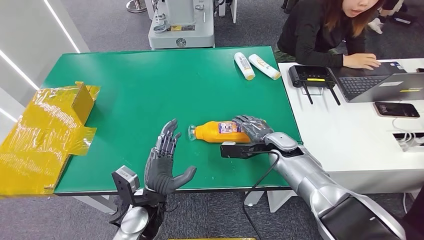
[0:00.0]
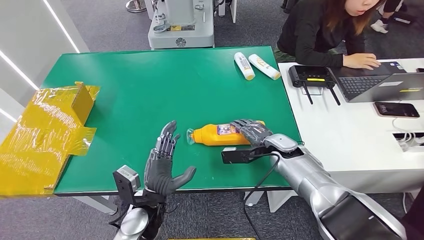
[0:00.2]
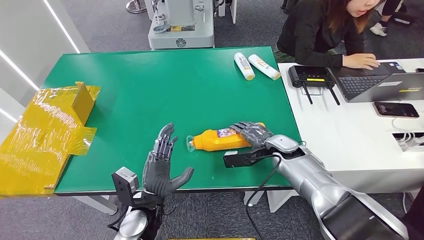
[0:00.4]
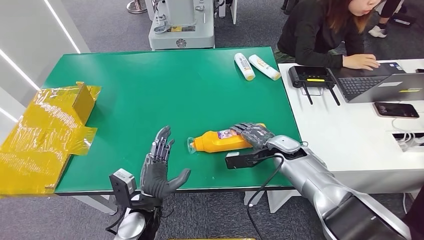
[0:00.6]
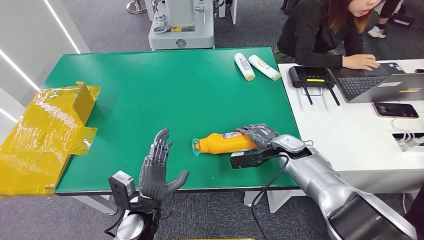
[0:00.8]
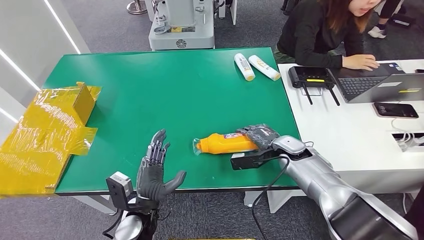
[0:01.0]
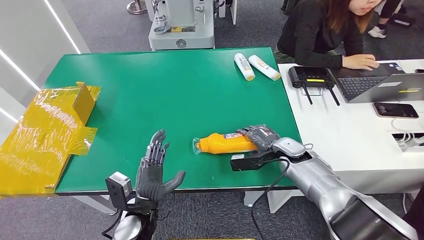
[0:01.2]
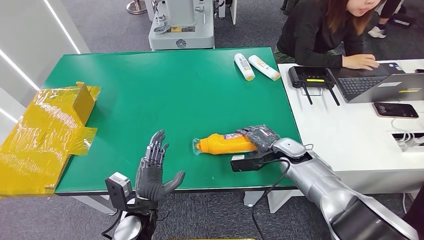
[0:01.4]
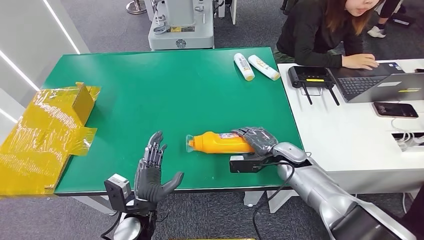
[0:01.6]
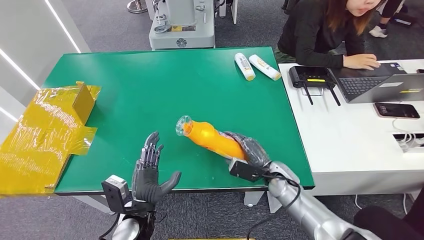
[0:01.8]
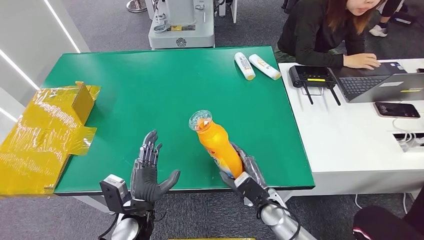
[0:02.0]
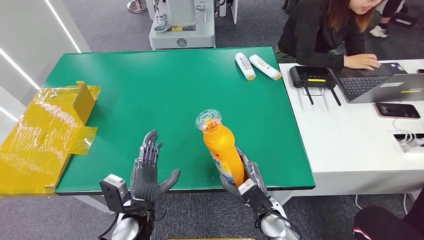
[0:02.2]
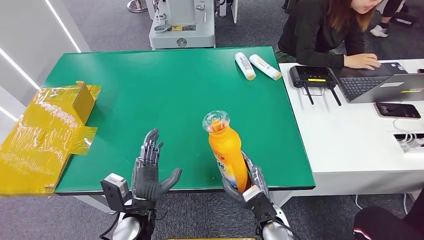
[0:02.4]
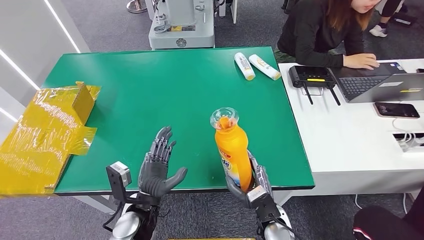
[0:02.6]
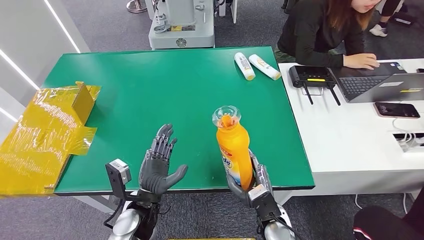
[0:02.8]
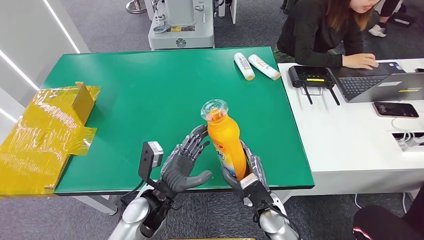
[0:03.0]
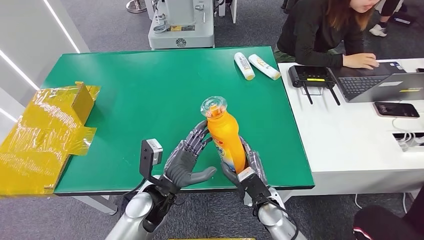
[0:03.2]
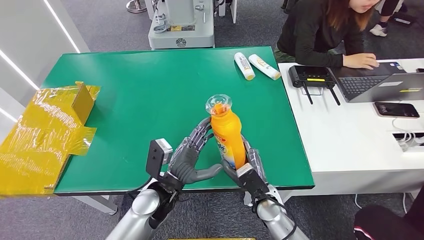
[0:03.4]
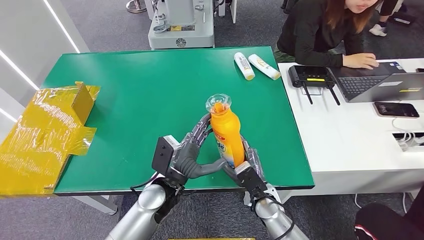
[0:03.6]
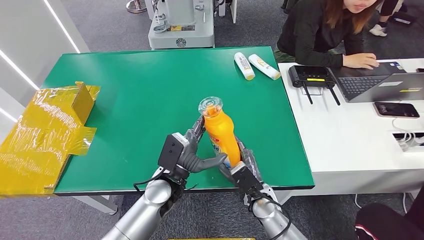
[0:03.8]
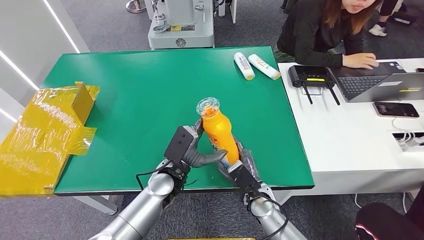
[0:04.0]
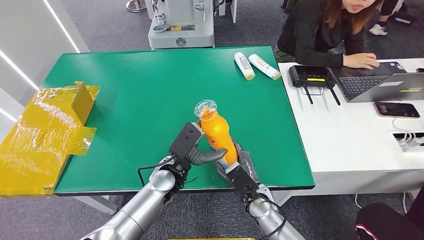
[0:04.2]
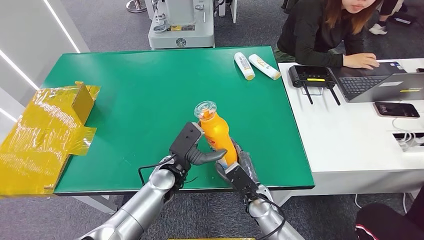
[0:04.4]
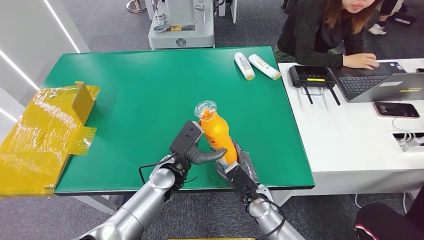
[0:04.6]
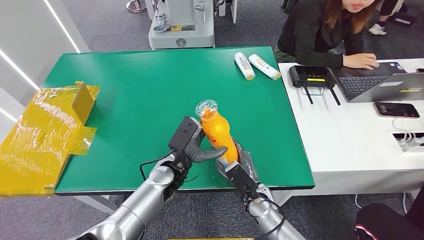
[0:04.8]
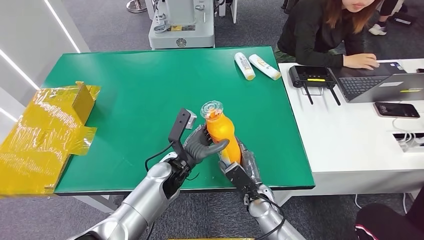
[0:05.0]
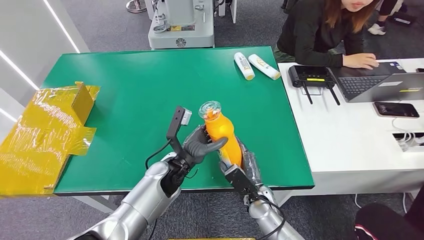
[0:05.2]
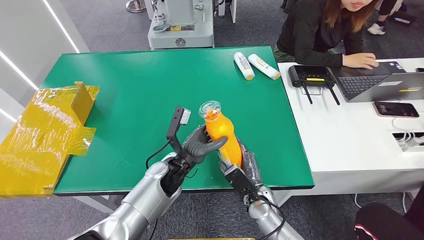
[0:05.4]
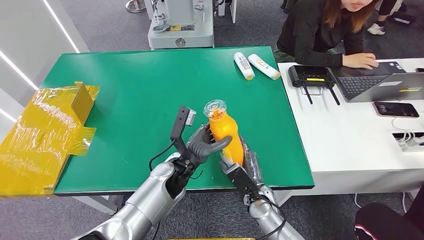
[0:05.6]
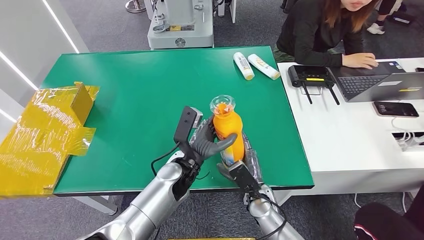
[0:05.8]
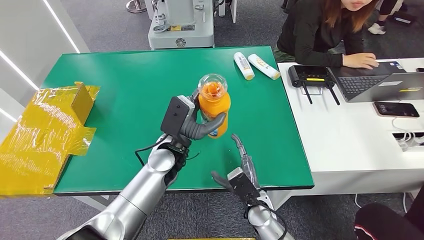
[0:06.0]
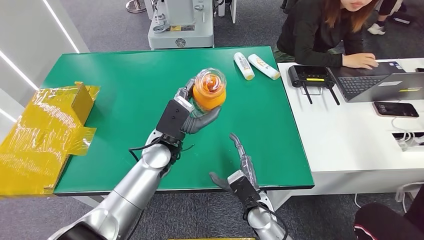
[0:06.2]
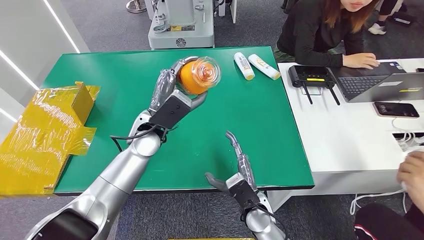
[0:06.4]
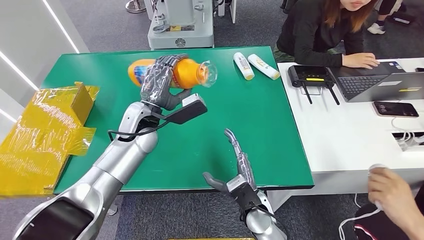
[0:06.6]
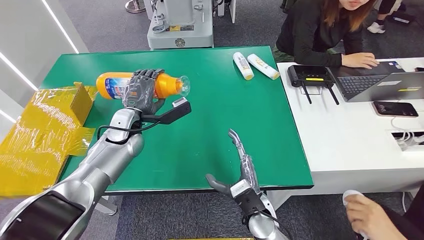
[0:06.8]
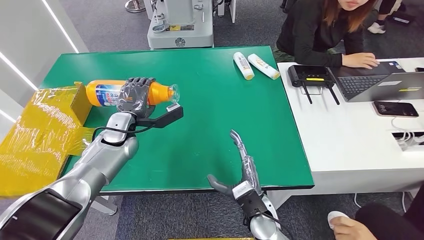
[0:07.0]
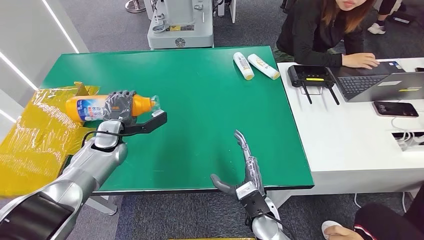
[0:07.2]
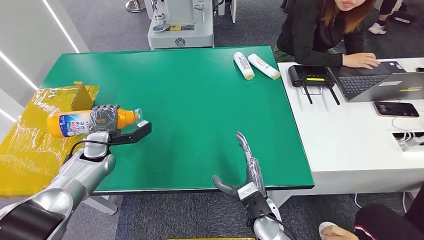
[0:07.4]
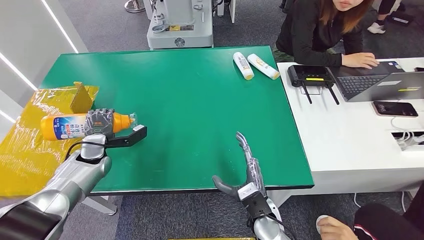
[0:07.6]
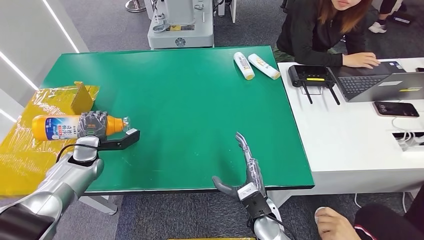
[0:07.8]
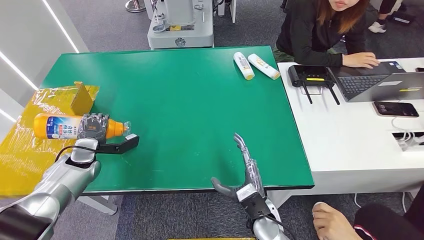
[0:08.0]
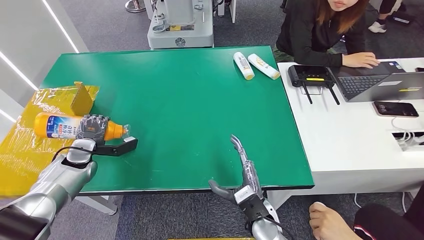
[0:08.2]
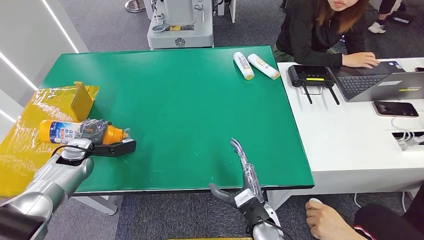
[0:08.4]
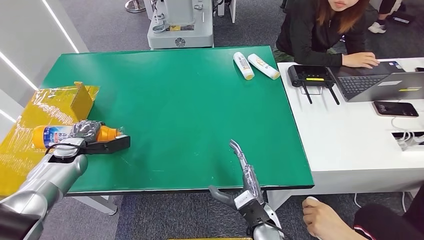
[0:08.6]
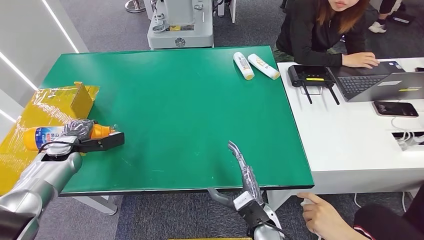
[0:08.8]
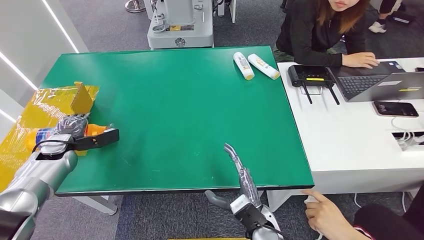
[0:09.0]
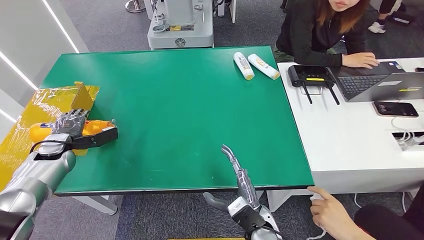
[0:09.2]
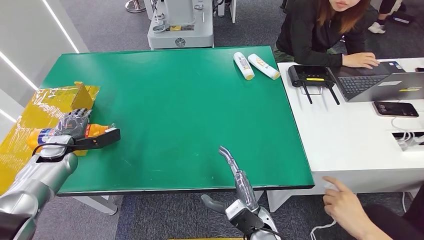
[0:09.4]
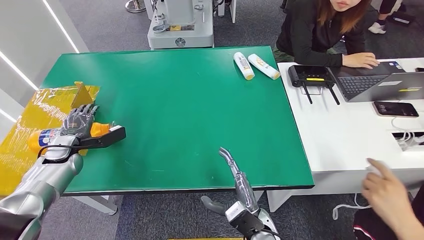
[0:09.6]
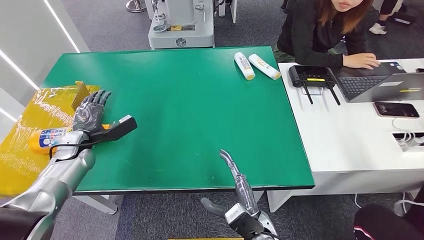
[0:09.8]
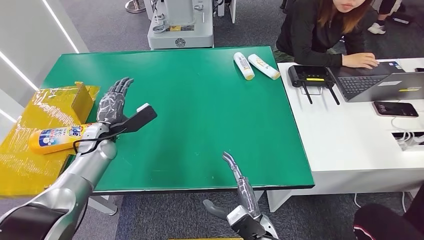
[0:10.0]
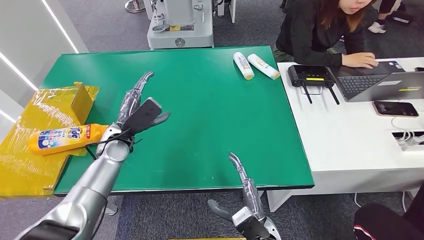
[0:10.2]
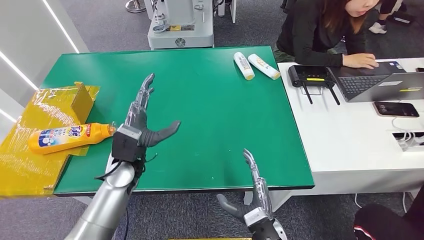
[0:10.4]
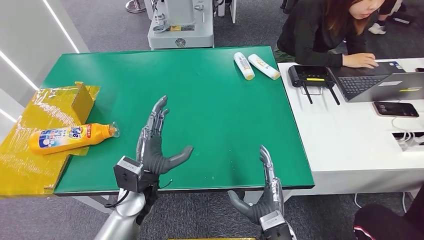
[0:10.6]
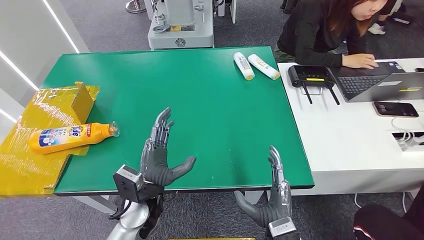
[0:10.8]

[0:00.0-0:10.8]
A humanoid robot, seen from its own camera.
Step, 0:02.0 to 0:10.8: Turn the bottle to the front side.
0:00.0 to 0:01.6: The hands make only small movements.
0:01.6 to 0:03.0: The right hand is displaced backward and to the left by about 15 cm; the left hand ends up roughly 5 cm from where it was.
0:03.0 to 0:04.6: The left hand shifts some 10 cm forward.
0:04.6 to 0:06.2: The left hand is displaced upward by roughly 10 cm.
0:06.2 to 0:07.8: The left hand is displaced to the left by roughly 25 cm.
0:07.8 to 0:09.2: The left hand is displaced to the left by about 10 cm.
0:09.2 to 0:10.8: The right hand ends up roughly 5 cm from where it was; the left hand travels to the right and backward by approximately 35 cm.

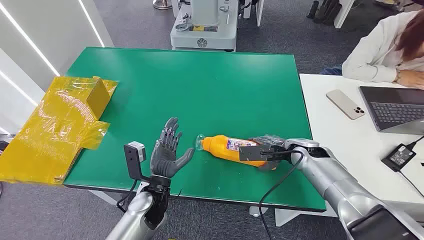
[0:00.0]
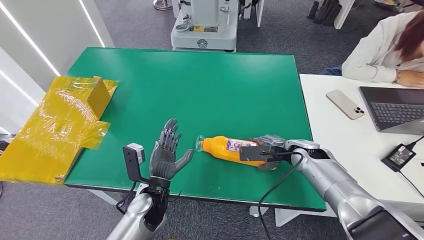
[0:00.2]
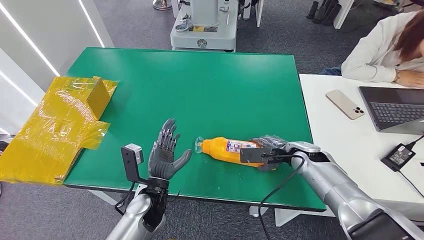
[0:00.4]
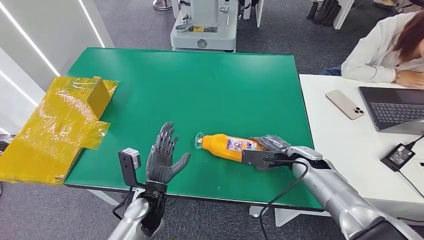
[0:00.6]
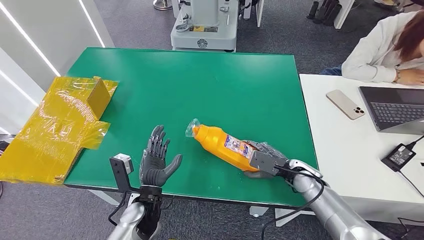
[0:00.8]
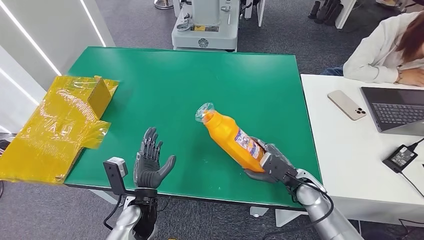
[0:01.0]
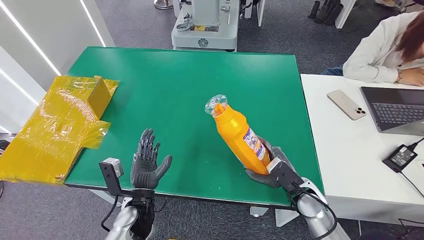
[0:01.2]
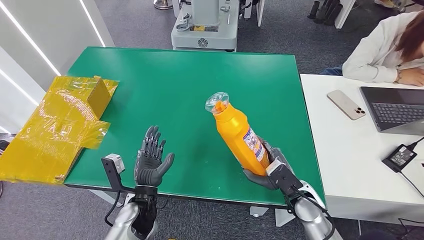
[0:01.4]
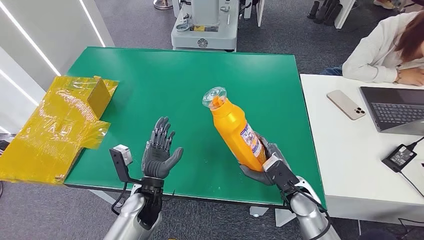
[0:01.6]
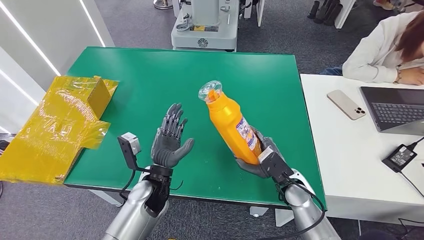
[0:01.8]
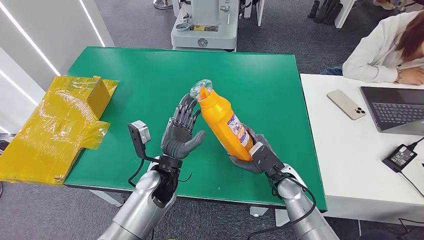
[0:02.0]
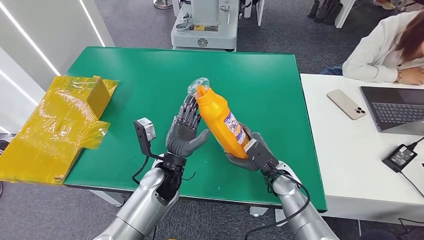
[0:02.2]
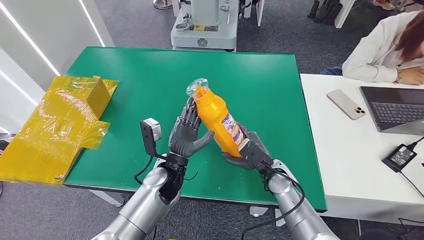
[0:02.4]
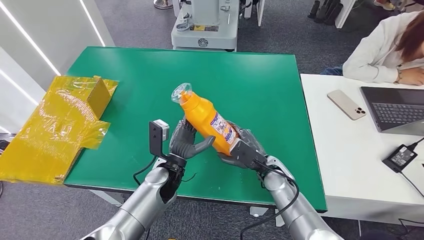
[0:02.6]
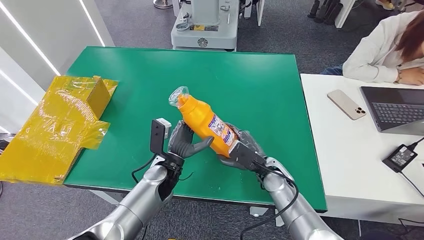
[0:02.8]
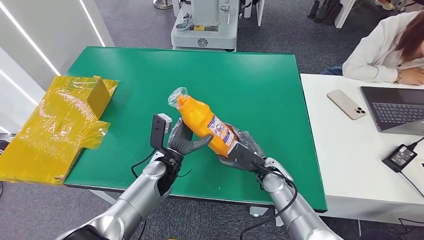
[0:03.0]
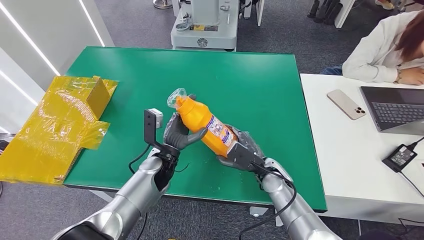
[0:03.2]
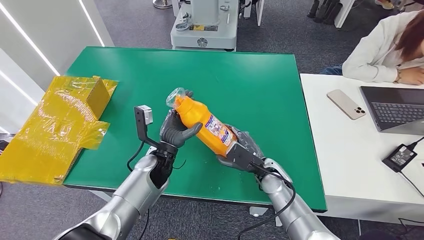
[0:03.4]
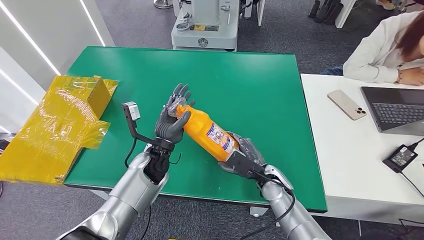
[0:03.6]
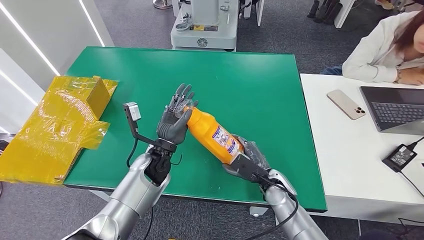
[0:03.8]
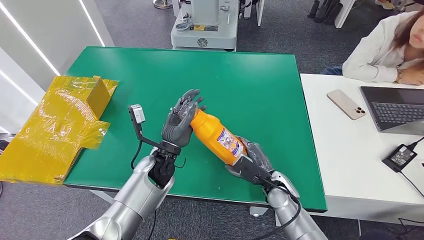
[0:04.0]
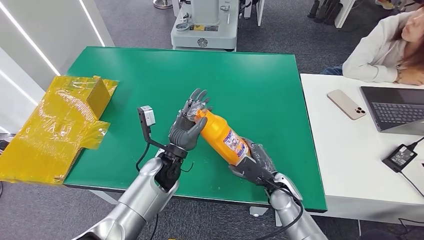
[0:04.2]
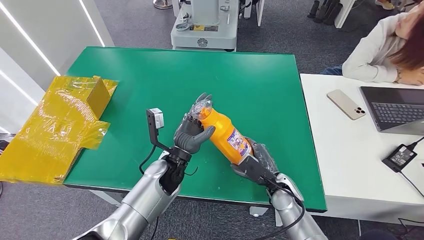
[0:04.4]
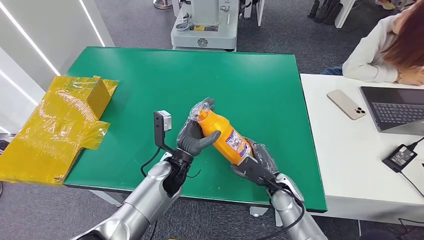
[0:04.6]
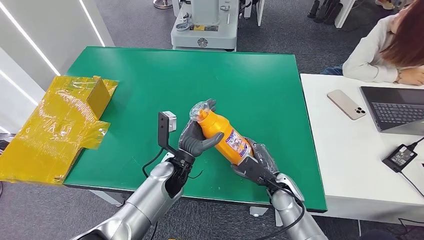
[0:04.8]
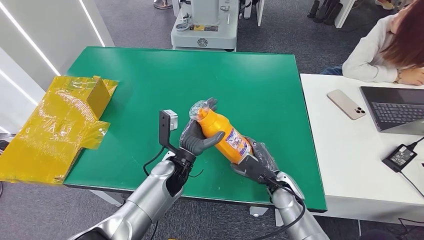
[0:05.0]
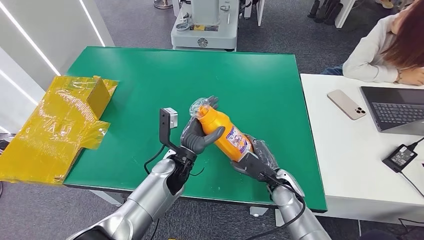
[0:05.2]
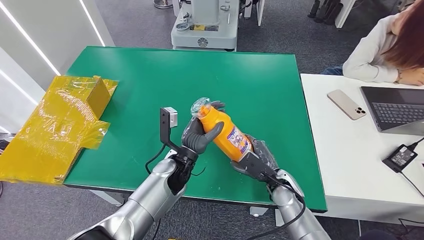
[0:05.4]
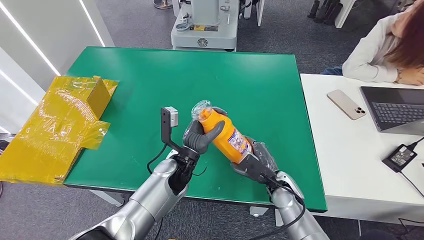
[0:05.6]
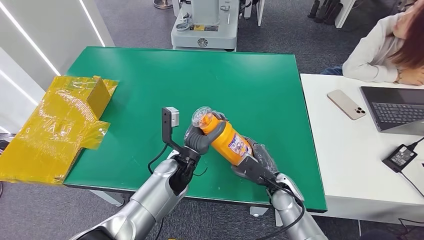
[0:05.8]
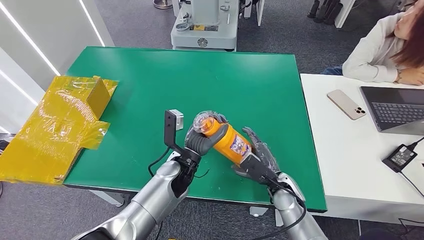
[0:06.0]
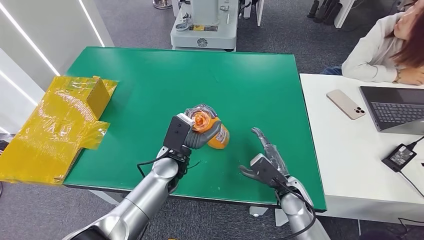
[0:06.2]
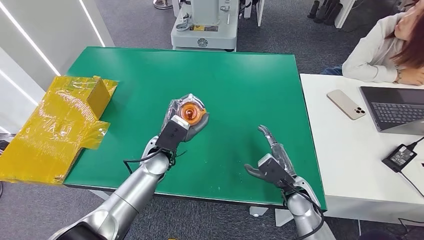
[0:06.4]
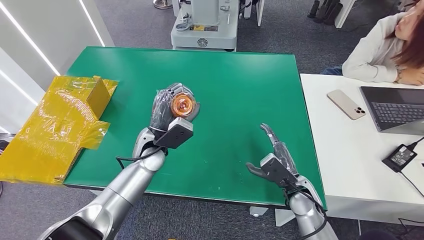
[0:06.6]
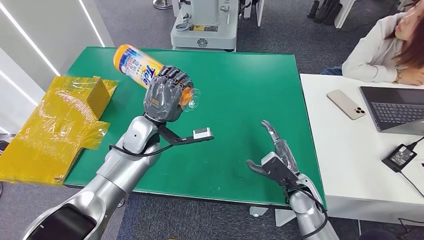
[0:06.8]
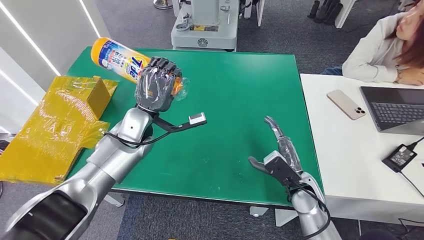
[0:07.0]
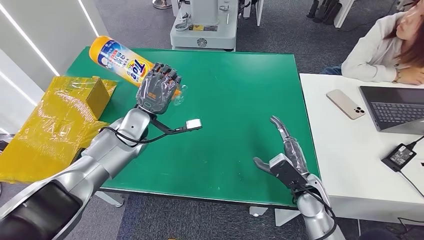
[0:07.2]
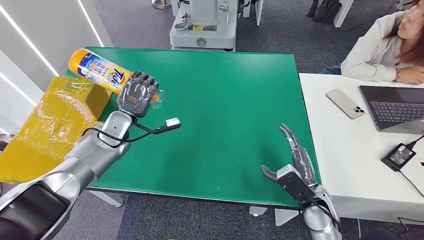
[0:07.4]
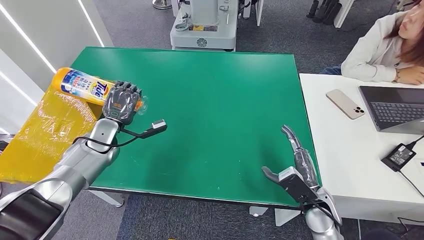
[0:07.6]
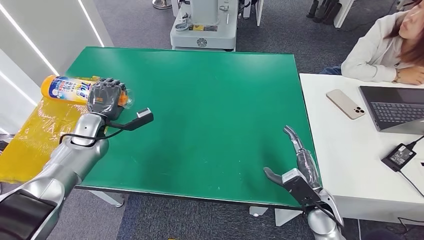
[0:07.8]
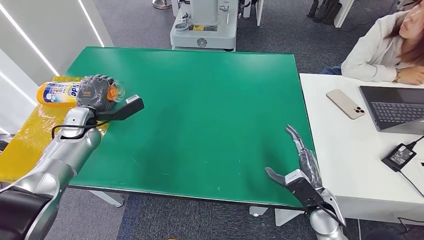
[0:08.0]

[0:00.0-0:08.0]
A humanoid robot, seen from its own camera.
Step, 0:00.0 to 0:01.2: Pick up the bottle from the table.
0:01.6 to 0:03.2: The left hand heads forward, covering roughly 10 cm, while the right hand moves some 5 cm.
0:04.8 to 0:06.4: The left hand shifts by some 5 cm.
